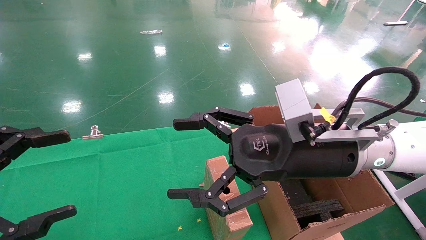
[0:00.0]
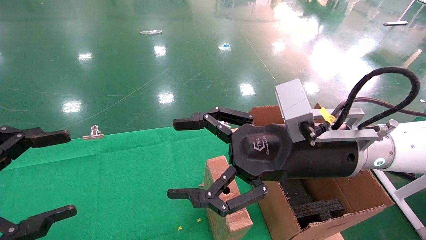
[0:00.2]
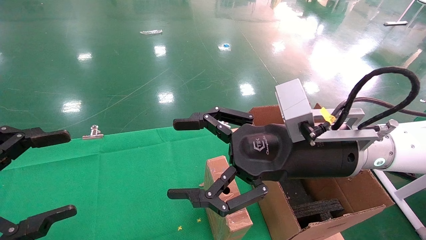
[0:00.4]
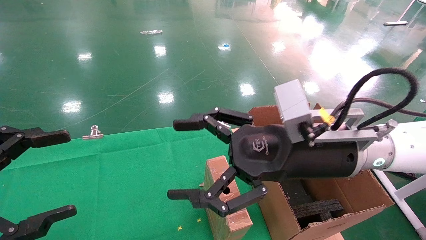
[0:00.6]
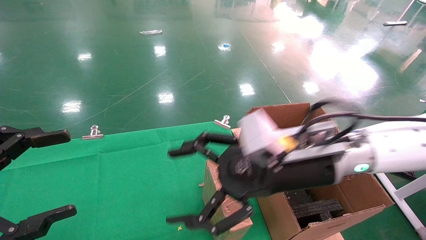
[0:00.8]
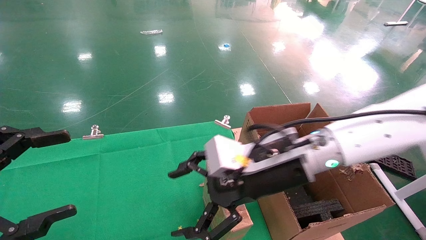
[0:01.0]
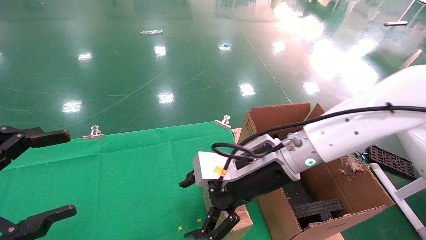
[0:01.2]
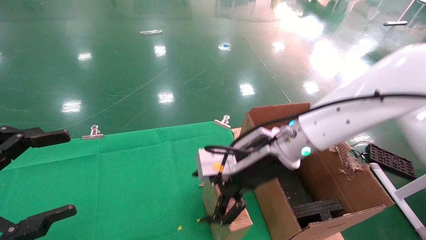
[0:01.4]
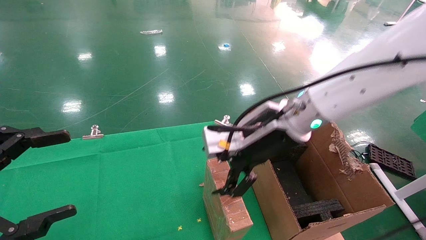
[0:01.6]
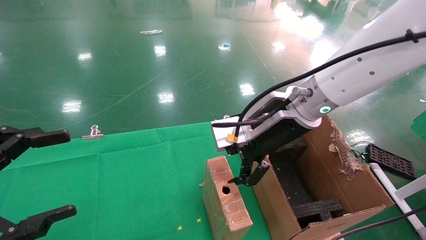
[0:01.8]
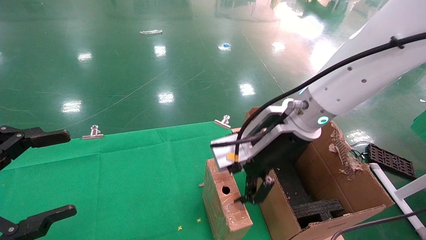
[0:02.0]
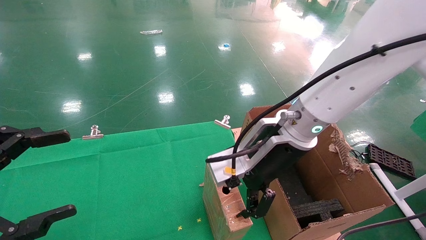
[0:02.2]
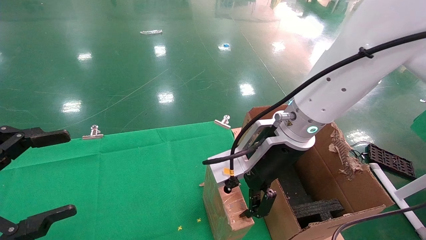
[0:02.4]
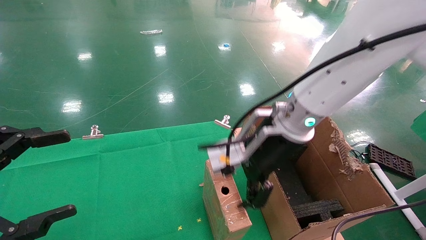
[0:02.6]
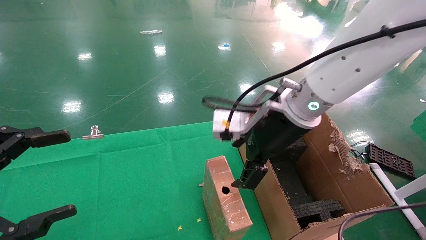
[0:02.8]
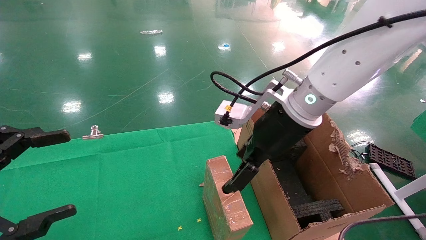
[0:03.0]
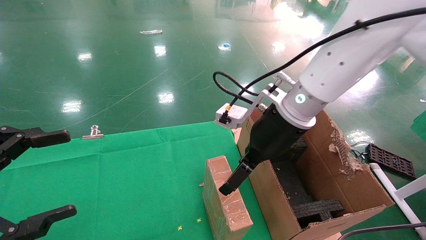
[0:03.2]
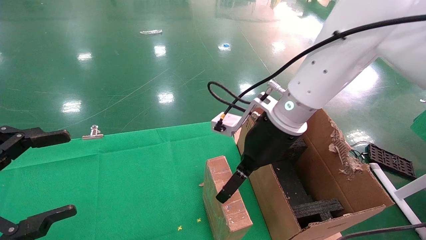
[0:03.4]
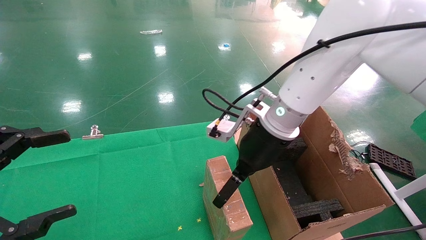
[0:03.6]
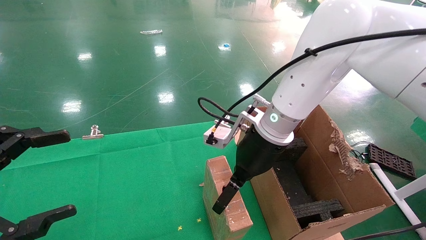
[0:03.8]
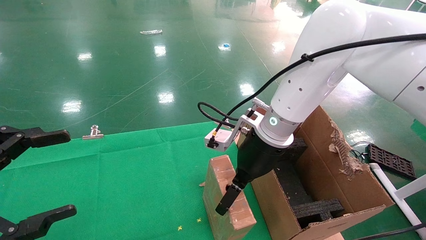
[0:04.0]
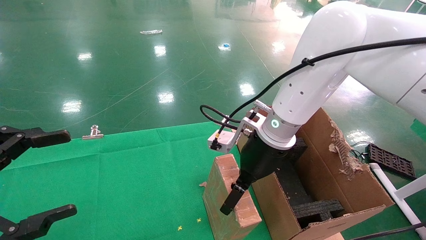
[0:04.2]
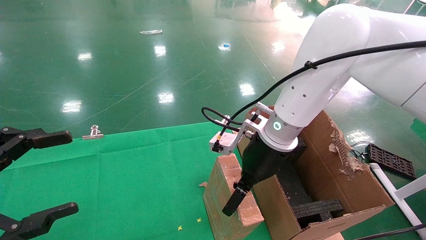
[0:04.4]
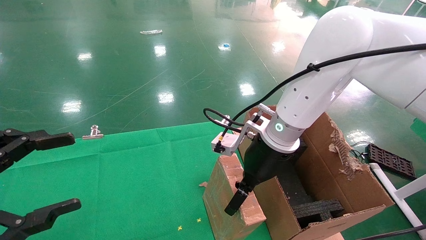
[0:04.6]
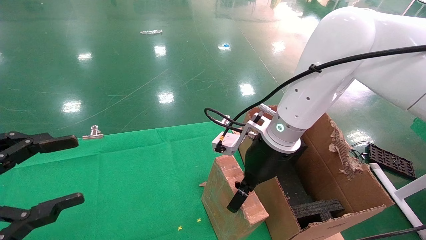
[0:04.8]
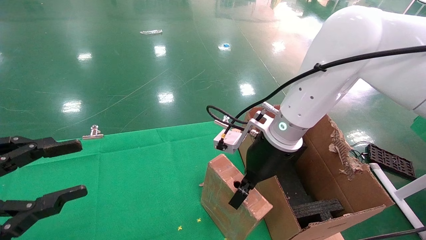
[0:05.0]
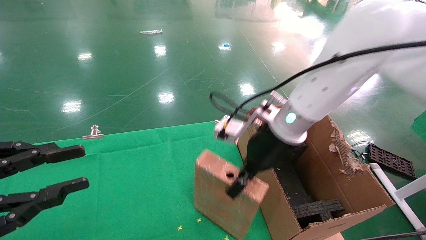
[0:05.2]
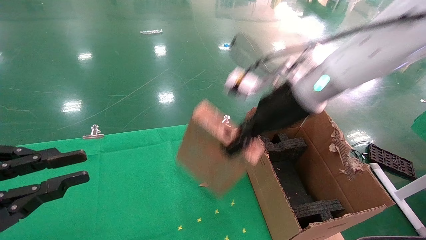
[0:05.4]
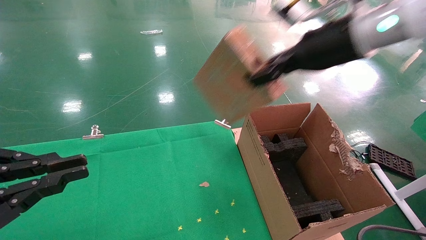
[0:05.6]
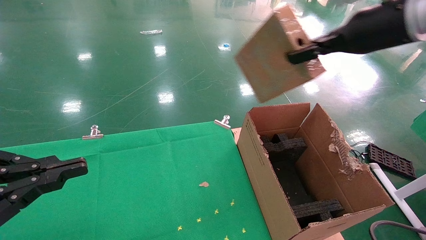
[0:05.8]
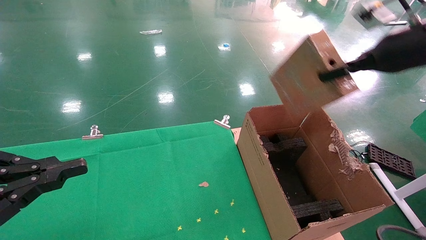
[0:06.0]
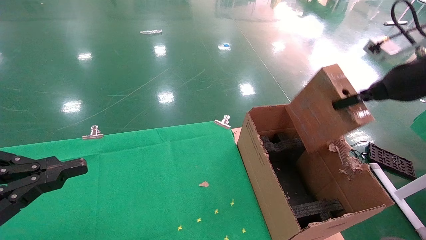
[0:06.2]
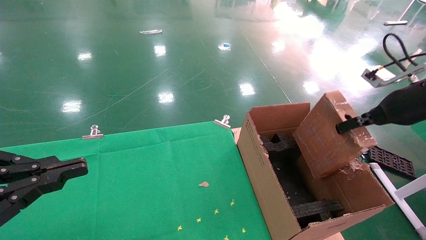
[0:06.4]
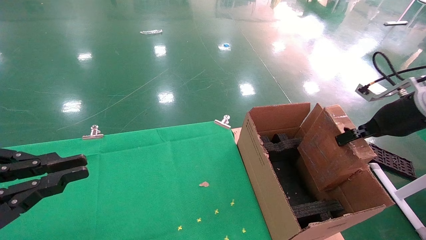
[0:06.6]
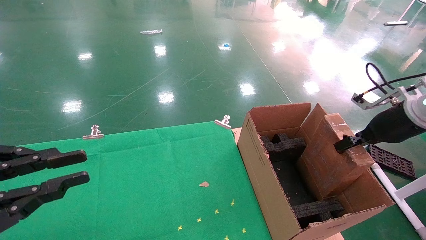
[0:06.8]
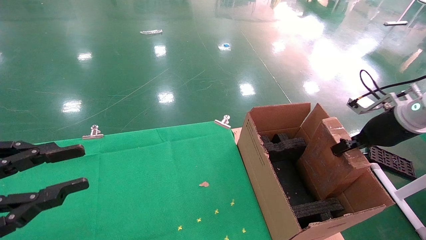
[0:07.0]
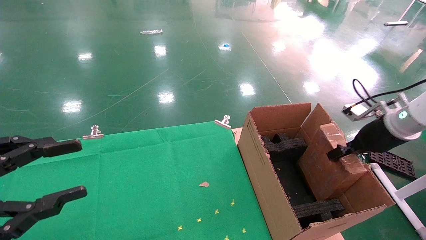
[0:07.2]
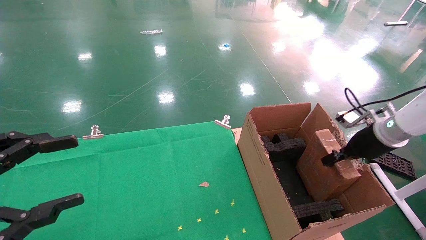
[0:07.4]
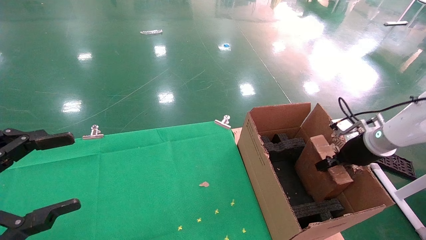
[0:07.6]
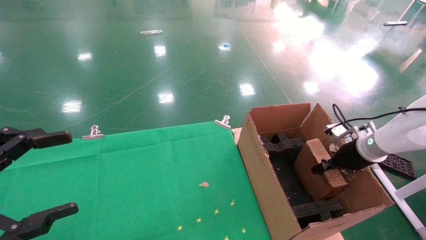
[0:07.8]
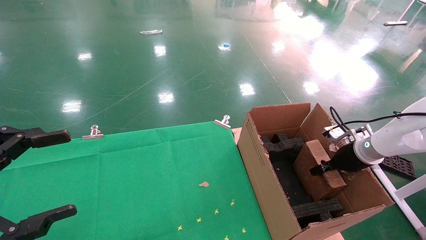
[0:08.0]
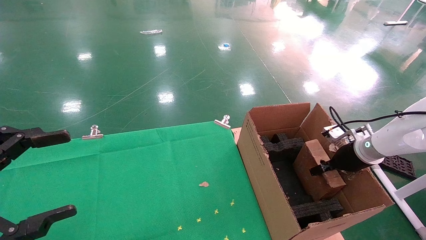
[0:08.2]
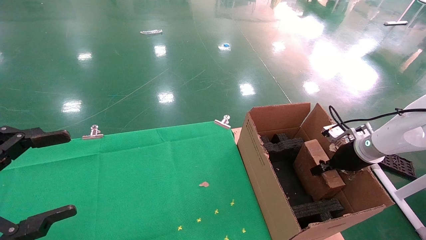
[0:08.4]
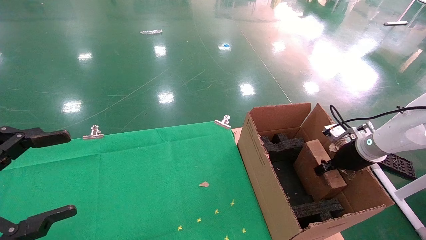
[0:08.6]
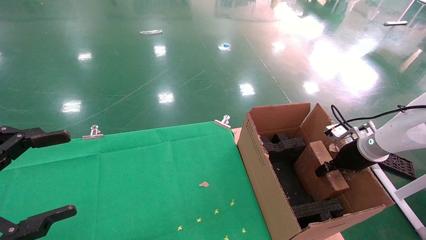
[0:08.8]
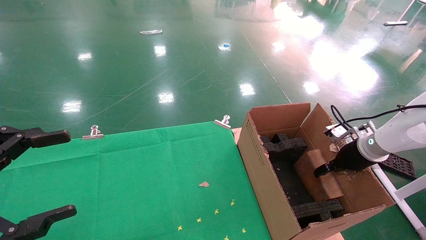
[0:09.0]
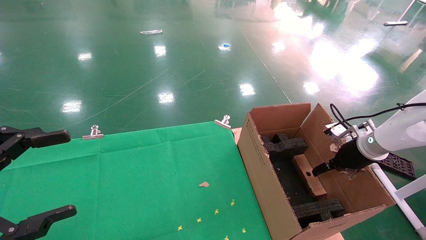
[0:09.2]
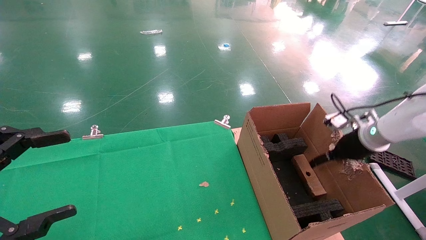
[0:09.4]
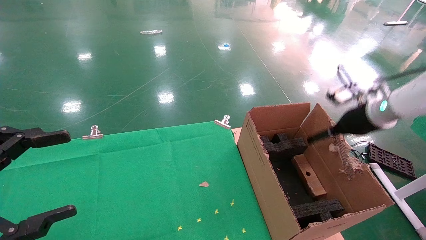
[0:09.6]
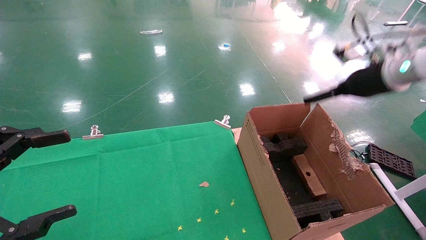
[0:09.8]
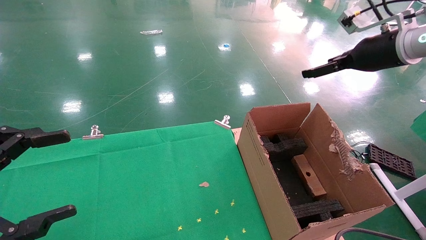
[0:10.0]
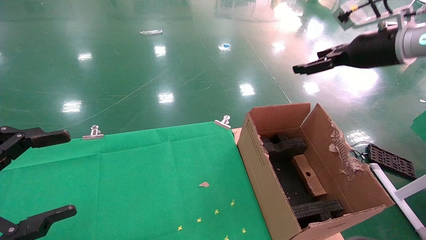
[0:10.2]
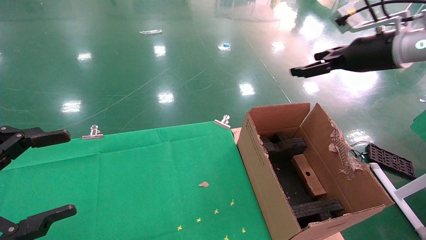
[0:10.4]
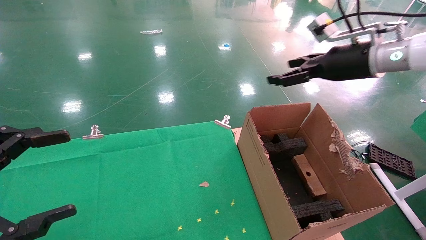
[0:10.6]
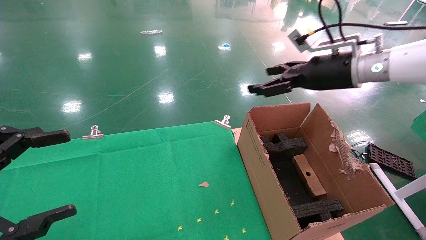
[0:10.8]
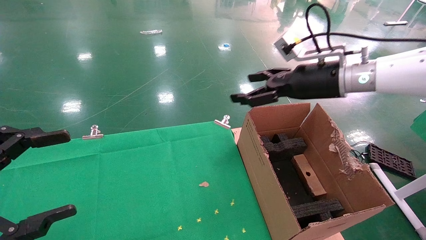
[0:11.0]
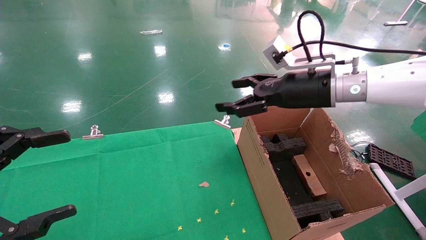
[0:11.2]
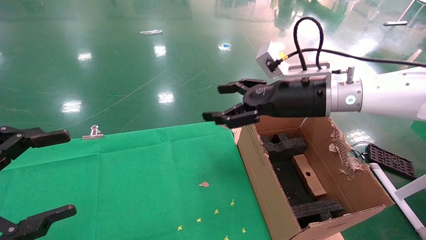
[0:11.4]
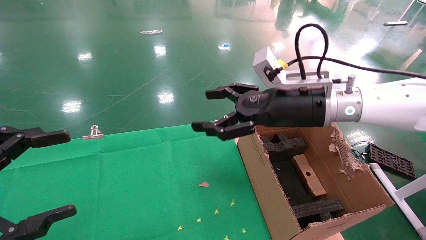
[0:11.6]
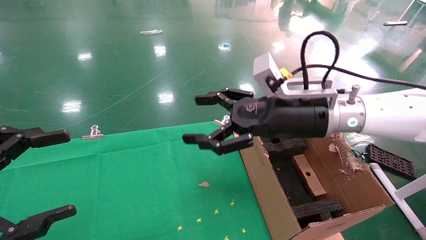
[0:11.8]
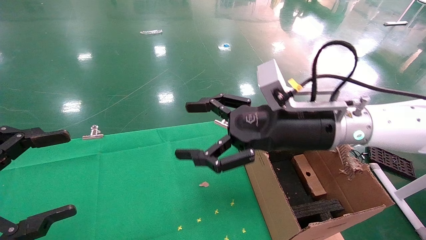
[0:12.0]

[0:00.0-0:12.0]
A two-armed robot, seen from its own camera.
Task of the whole recording: using a robotic arm to pick up a cardboard box and palace it the carton.
Step, 0:00.8 to 0:05.2: Pick up the mouse and the power cord paper box.
Step, 0:05.4 to 0:09.2: Place the mouse and the power cord paper box into the container.
0:00.0 to 0:01.6: The right gripper shifts approximately 5 cm forward.
0:03.0 to 0:04.4: The right gripper heads downward, covering approximately 5 cm.
0:04.4 to 0:06.0: The left gripper closes; the right gripper moves to the right and upward, approximately 30 cm, and closes its fingers.
0:06.0 to 0:07.6: The left gripper opens up. Meanwhile the right gripper shifts roughly 20 cm downward.
0:07.6 to 0:09.0: The right gripper opens.
0:09.0 to 0:10.4: The right gripper travels upward by some 20 cm, and opens.
0:10.4 to 0:12.0: The right gripper moves to the left, downward and backward, roughly 25 cm.

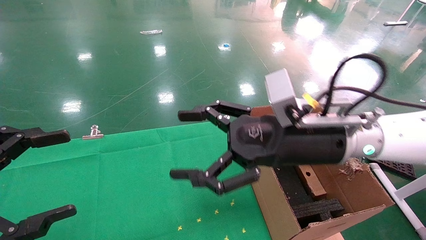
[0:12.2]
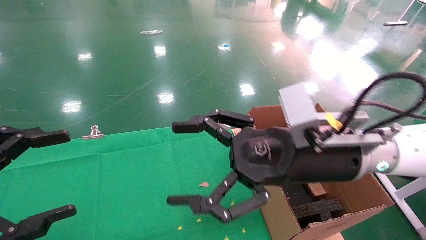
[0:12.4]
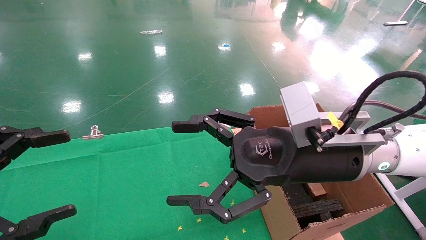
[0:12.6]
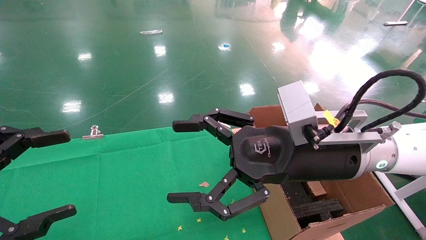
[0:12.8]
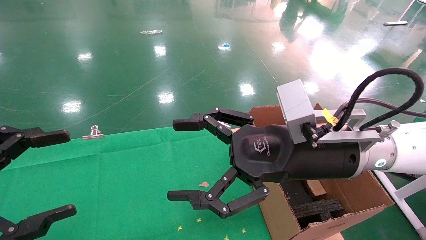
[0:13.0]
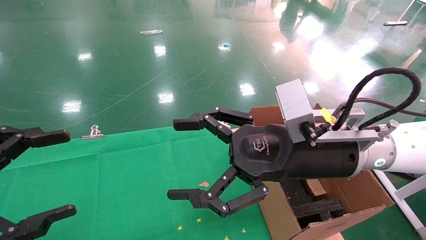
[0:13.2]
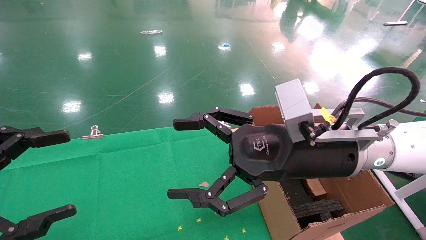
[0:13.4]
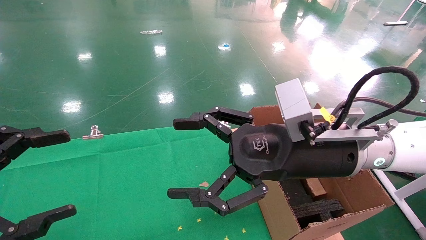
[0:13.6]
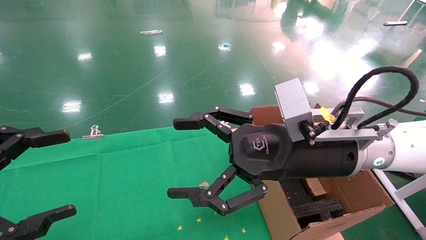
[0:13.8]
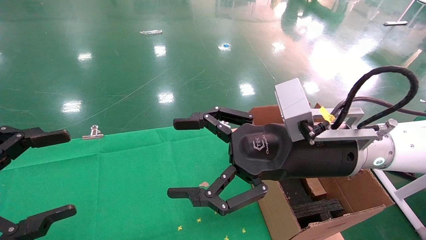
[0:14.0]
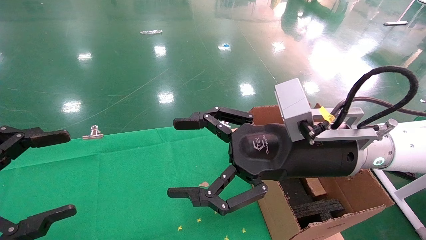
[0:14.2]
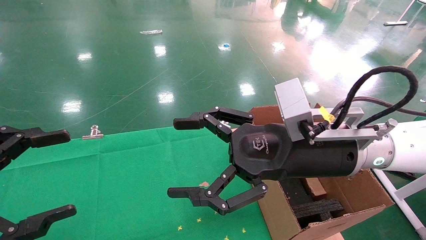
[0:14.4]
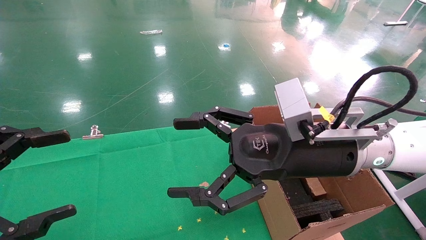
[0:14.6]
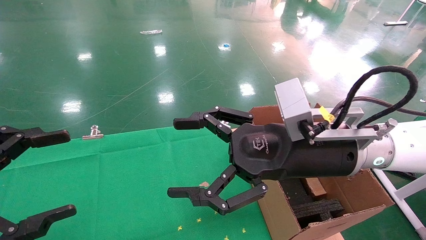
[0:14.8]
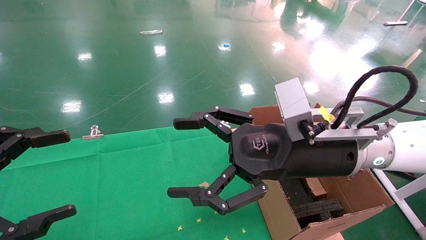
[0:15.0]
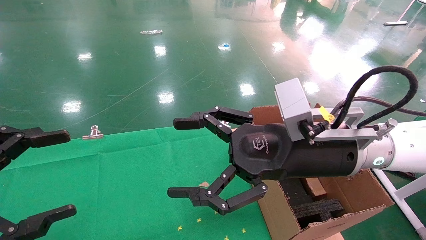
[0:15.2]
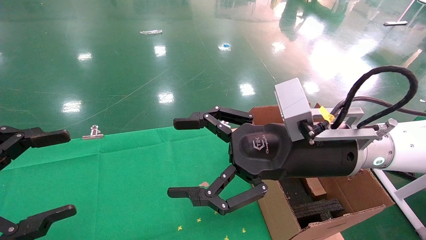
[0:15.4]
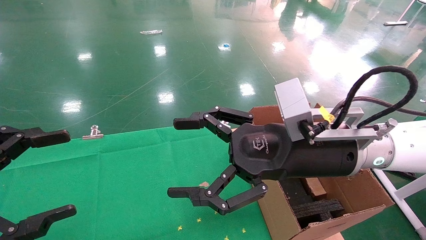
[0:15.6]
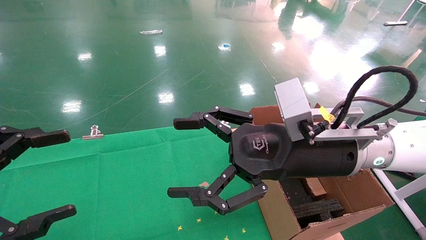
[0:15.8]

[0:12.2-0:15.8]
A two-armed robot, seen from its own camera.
Task of the whole recording: using a robotic arm to pick up a cardboard box and palace it the carton.
0:12.2 to 0:14.0: The grippers make only small movements.
0:14.0 to 0:15.8: Neither gripper changes place.

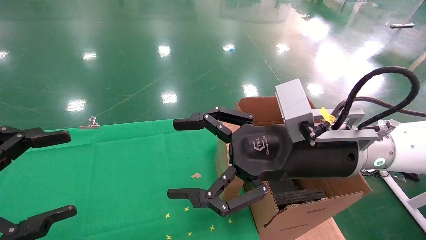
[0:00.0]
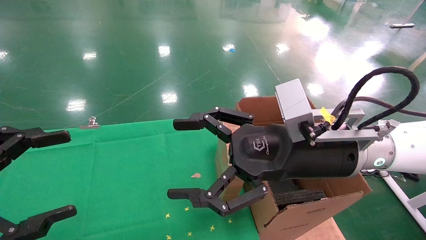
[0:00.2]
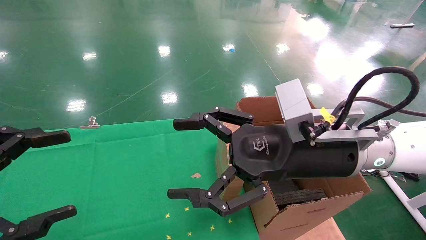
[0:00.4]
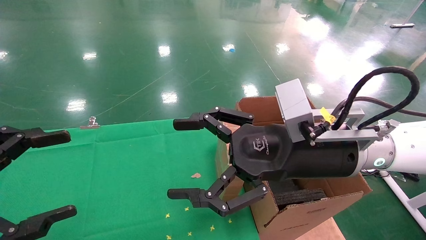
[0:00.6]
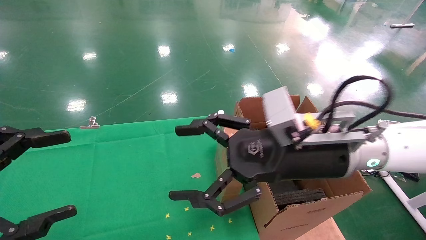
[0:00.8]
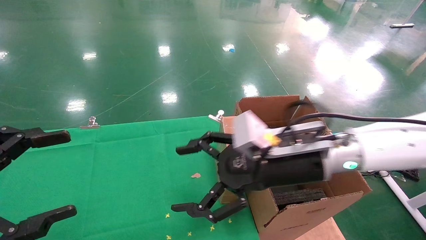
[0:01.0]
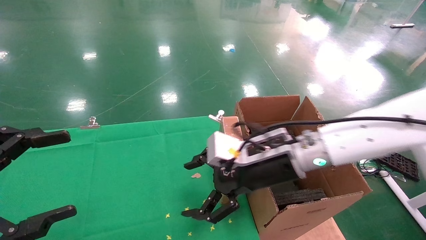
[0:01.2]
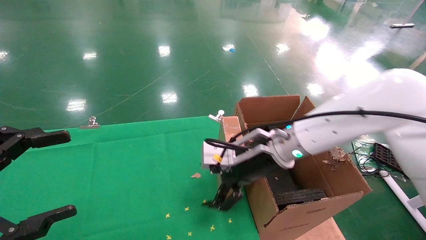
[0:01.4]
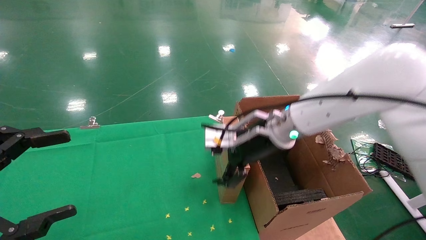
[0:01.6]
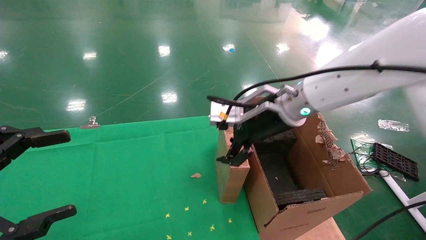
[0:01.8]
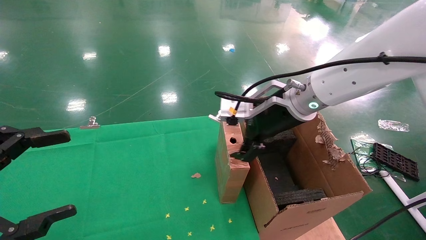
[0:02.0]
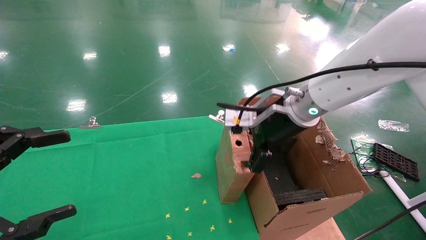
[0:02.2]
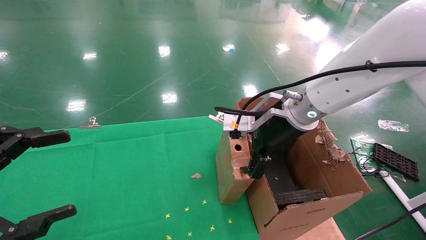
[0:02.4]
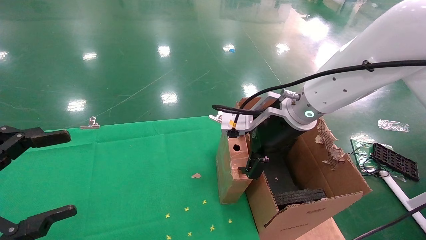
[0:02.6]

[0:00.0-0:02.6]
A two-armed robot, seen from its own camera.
Task of the whole recording: using a robotic arm to pick up a cardboard box and palace it the carton.
0:00.0 to 0:01.2: The right gripper shifts roughly 5 cm forward.
0:01.2 to 0:02.6: The right gripper goes approximately 5 cm upward.
